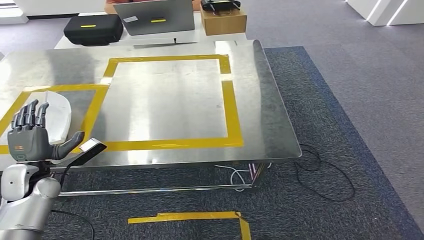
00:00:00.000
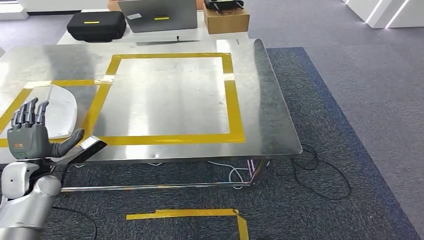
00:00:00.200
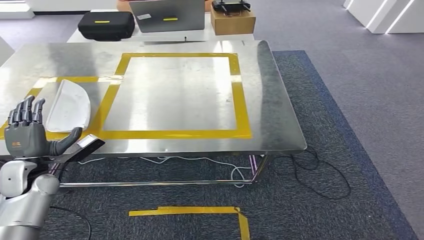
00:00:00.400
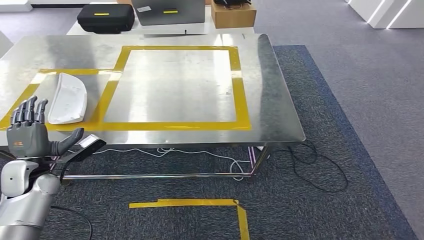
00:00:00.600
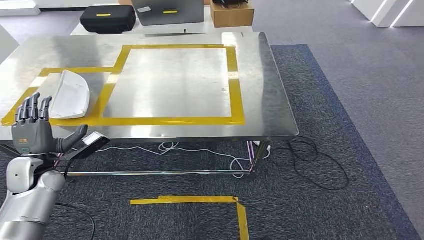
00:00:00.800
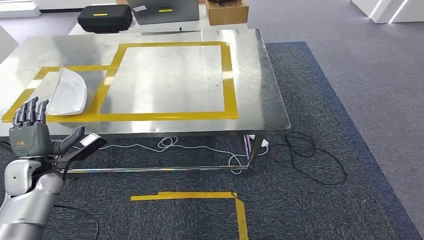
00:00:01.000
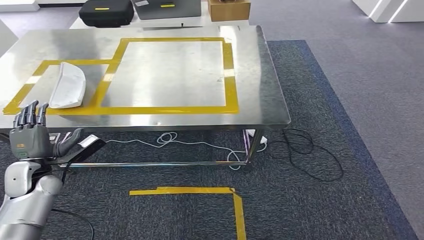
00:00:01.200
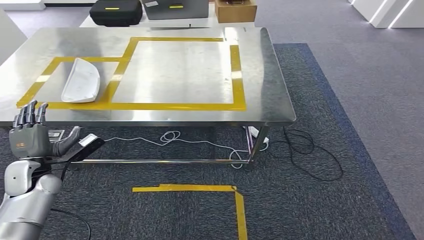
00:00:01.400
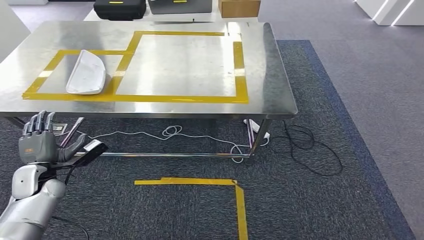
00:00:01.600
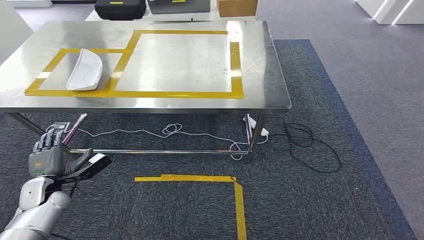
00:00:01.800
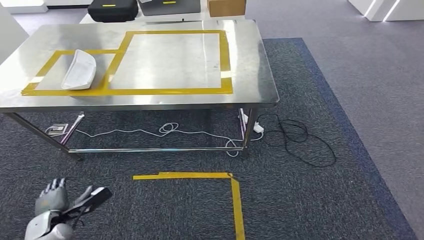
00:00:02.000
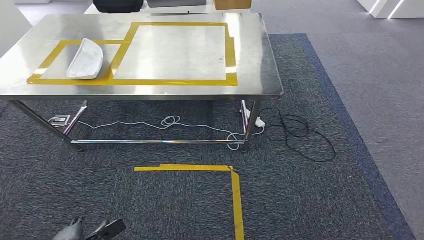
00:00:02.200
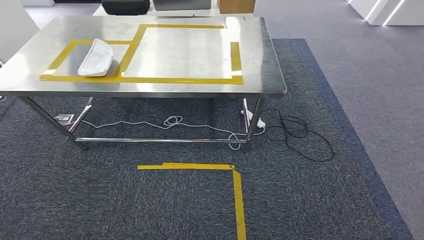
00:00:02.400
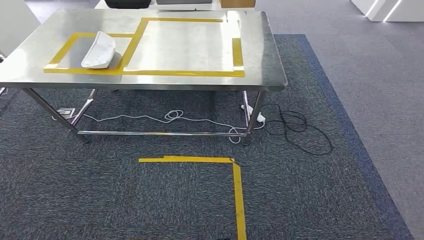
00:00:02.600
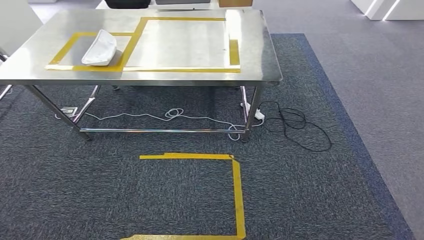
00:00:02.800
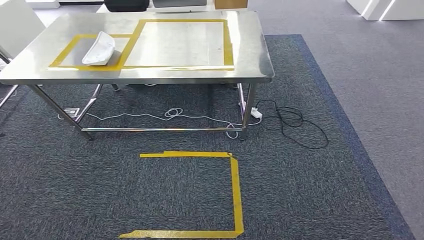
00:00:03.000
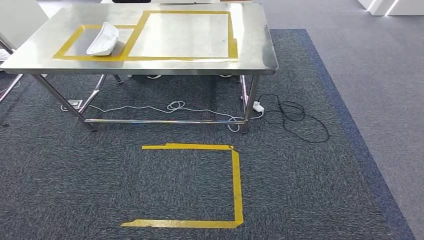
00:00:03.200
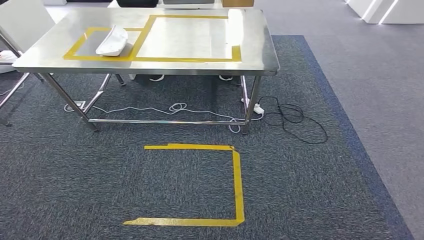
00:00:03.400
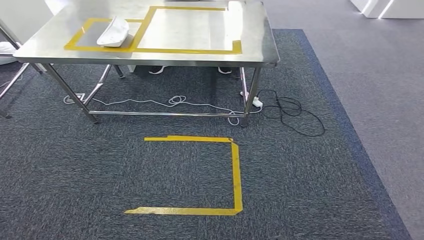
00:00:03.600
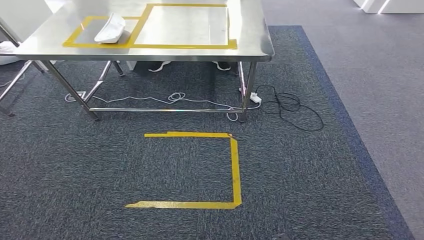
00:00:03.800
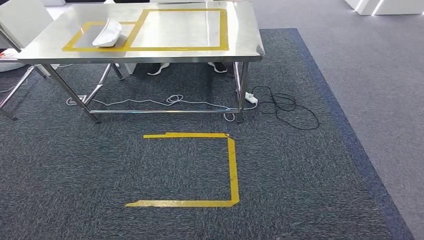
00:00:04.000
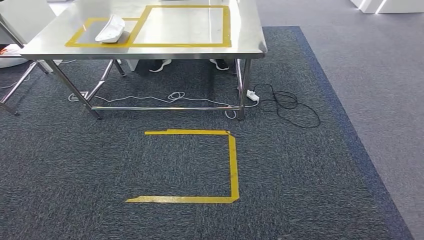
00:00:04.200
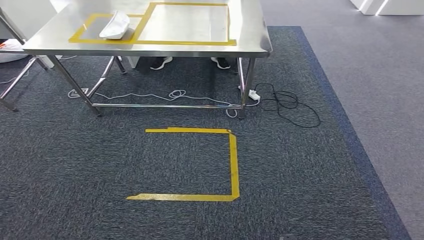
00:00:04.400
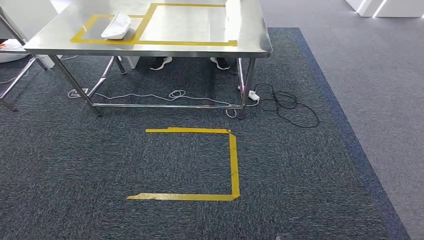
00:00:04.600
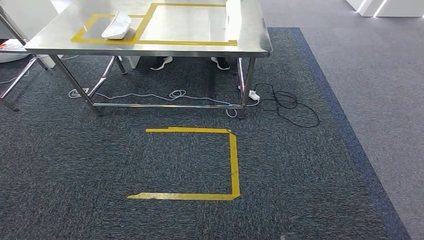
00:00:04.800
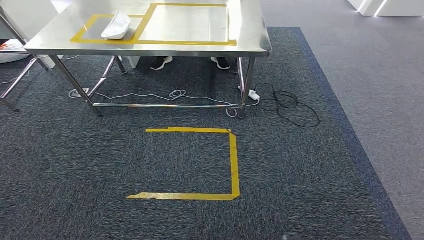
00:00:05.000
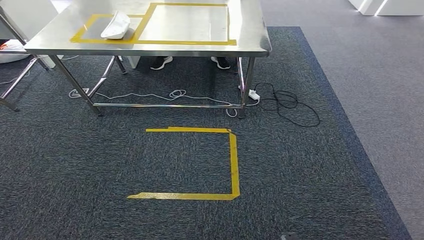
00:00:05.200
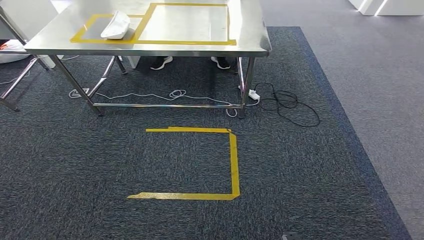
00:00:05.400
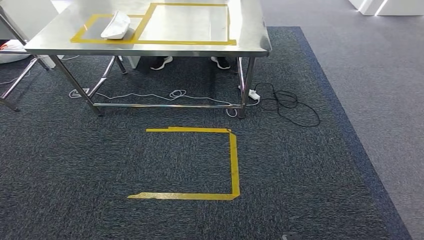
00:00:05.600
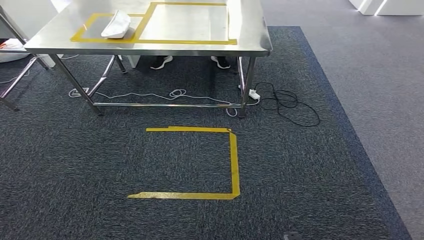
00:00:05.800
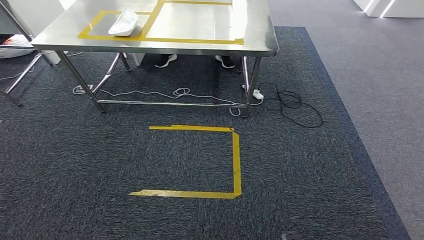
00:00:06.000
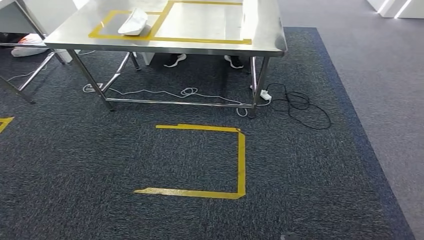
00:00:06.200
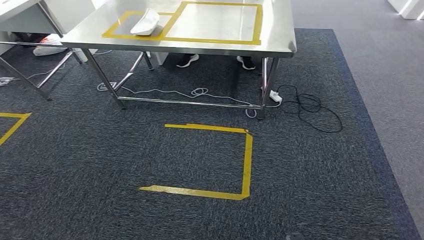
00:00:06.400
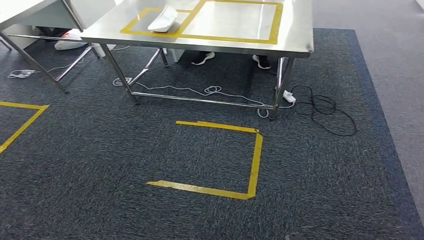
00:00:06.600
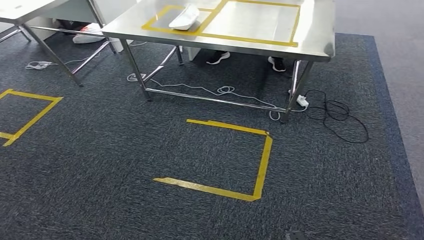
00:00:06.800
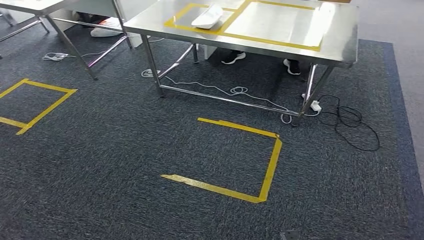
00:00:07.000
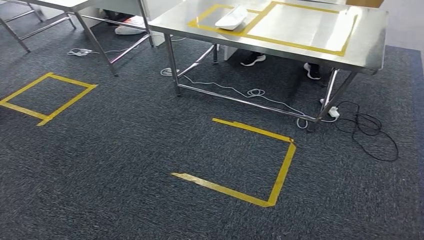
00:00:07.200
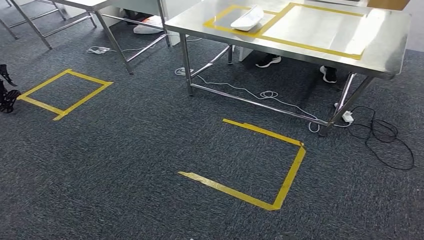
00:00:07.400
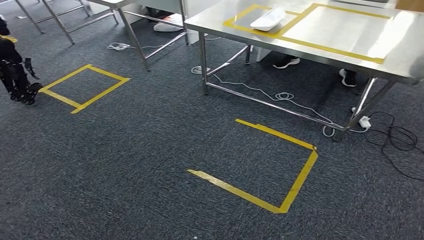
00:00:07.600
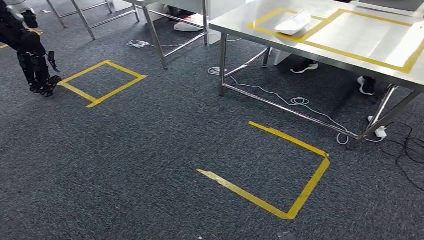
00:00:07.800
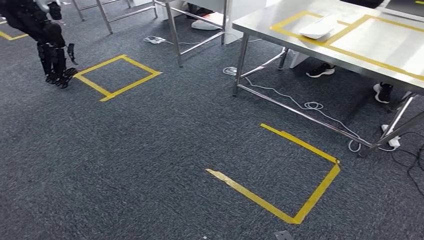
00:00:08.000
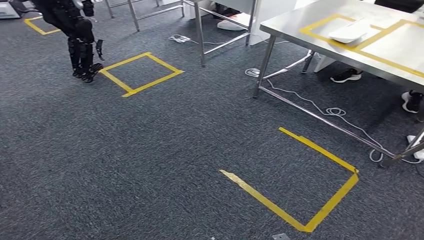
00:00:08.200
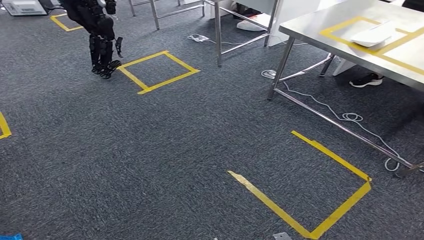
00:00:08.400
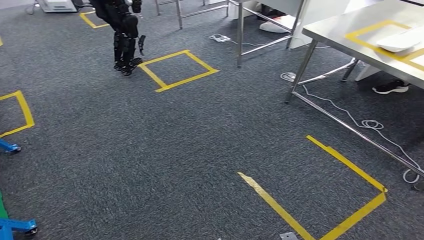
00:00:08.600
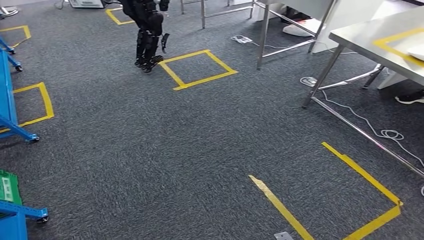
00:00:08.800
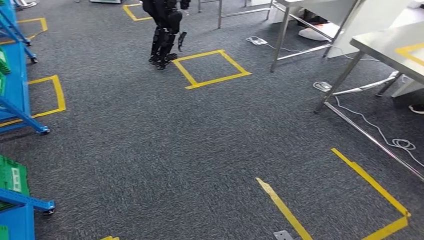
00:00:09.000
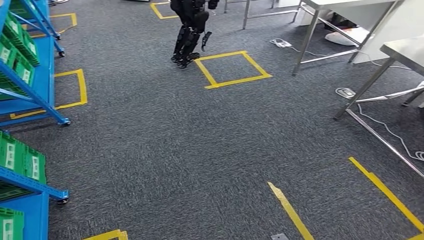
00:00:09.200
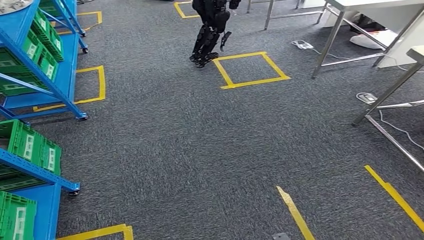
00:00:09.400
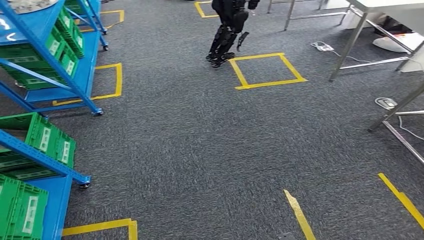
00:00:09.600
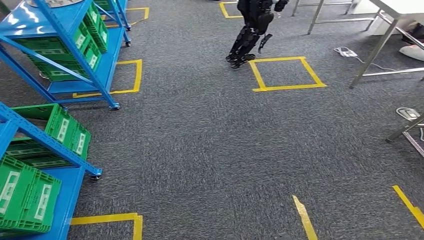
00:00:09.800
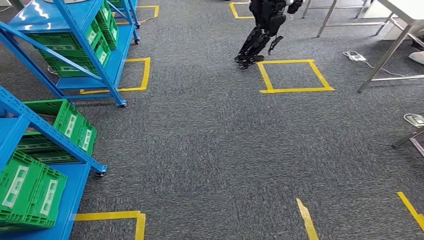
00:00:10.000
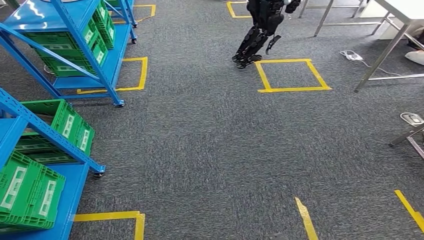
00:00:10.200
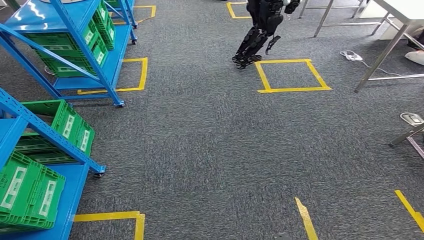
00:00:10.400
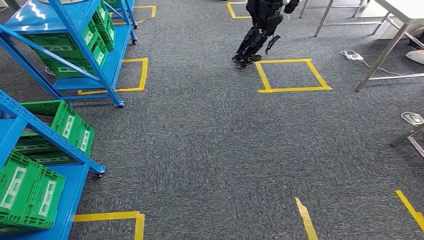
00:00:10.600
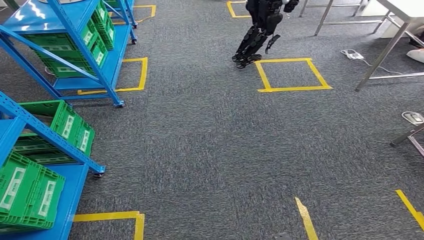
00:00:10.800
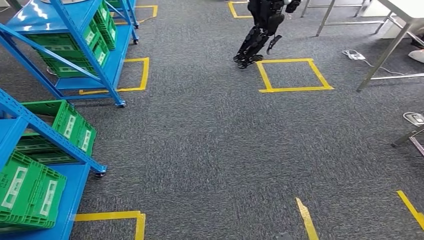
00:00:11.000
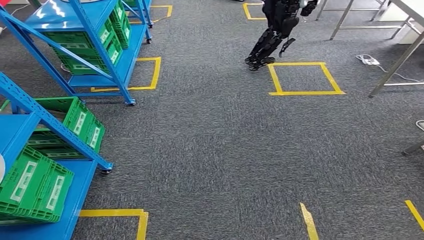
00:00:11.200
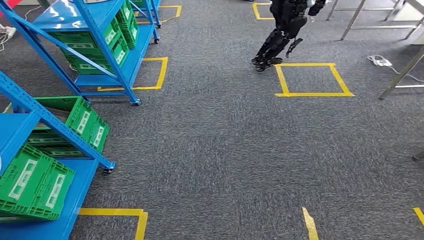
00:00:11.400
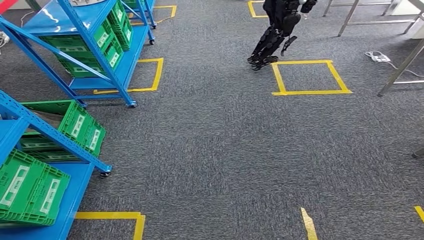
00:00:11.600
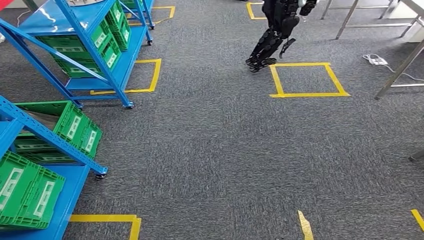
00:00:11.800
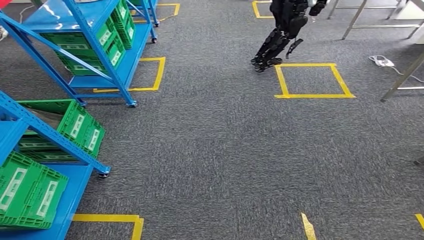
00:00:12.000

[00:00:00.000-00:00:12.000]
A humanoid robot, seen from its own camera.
00:00:04.400 to 00:00:06.000: The hands move only a little.

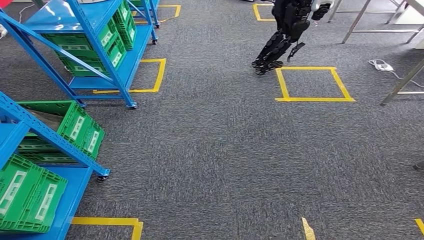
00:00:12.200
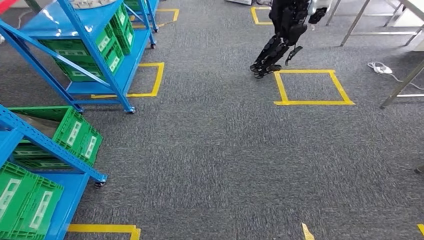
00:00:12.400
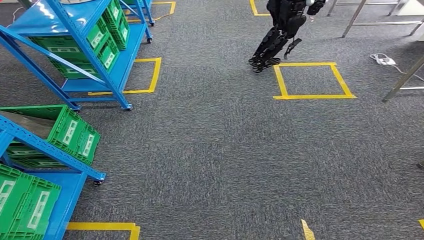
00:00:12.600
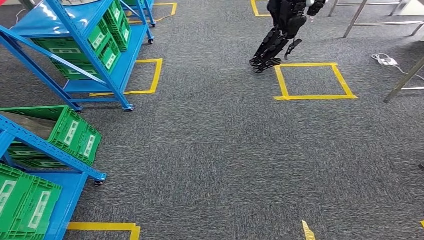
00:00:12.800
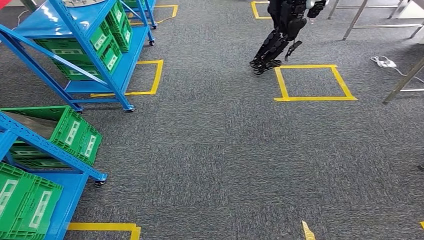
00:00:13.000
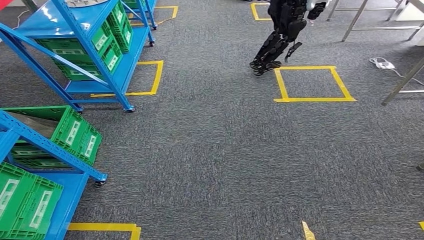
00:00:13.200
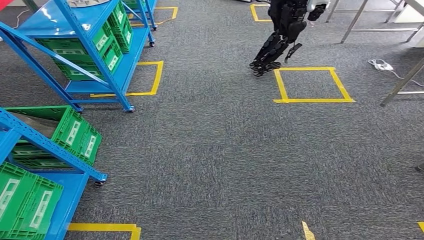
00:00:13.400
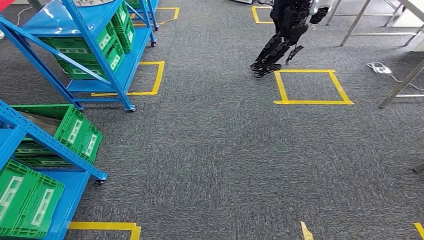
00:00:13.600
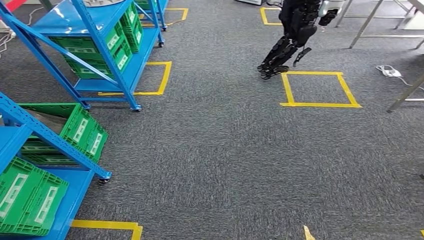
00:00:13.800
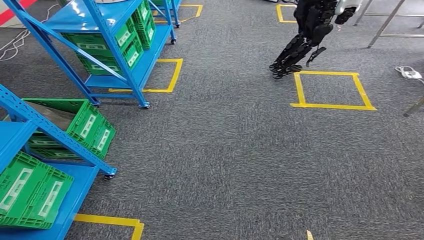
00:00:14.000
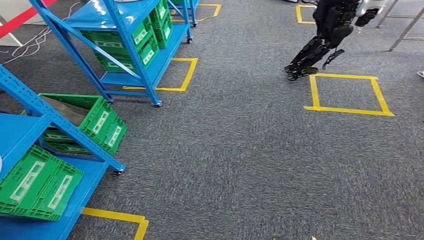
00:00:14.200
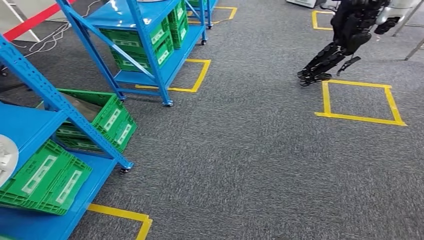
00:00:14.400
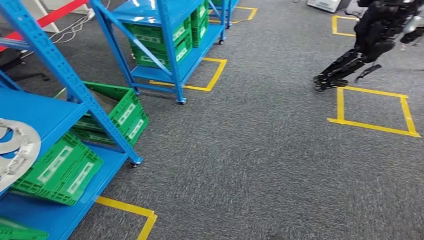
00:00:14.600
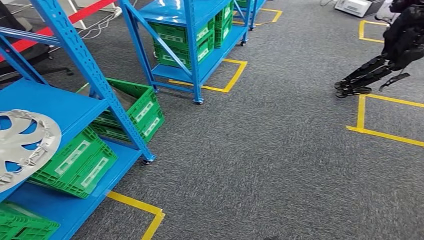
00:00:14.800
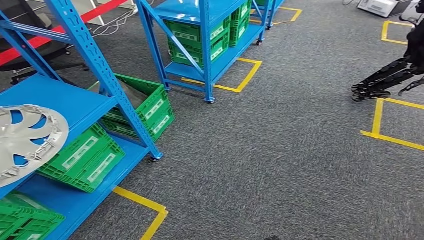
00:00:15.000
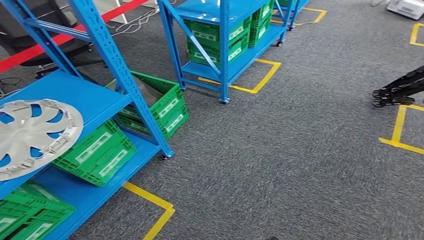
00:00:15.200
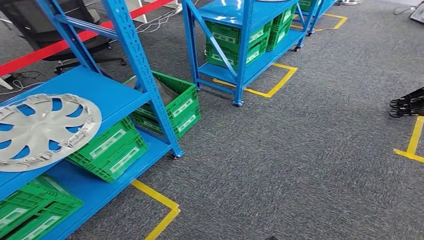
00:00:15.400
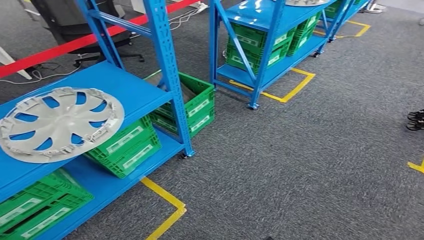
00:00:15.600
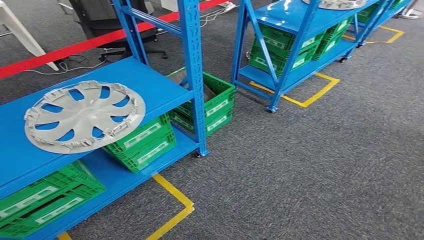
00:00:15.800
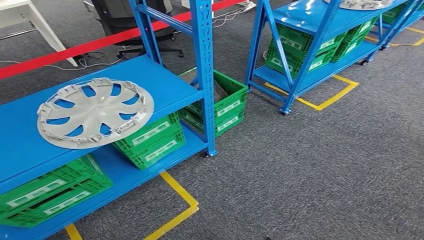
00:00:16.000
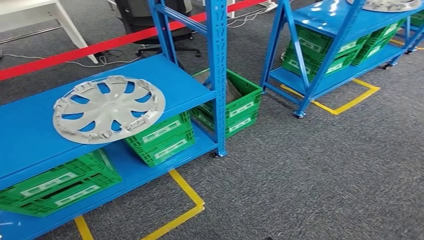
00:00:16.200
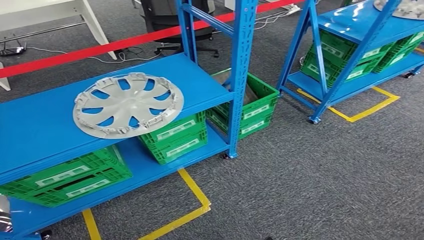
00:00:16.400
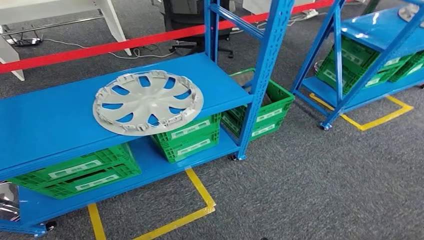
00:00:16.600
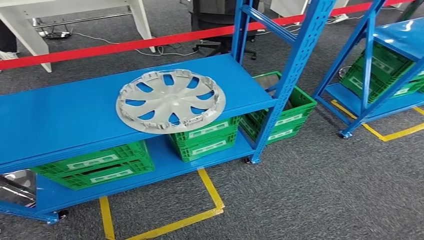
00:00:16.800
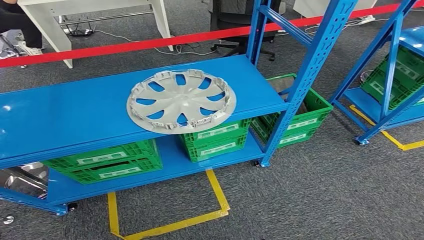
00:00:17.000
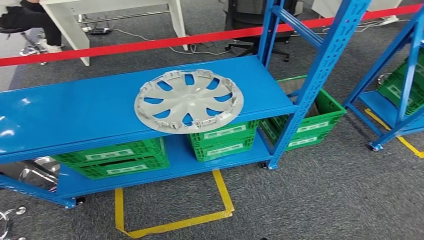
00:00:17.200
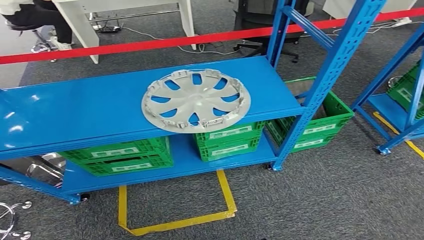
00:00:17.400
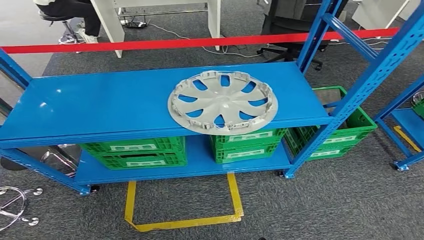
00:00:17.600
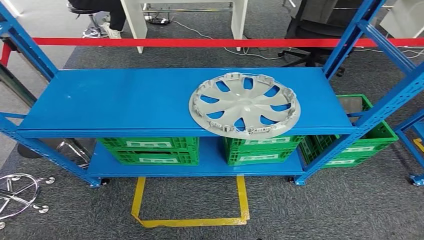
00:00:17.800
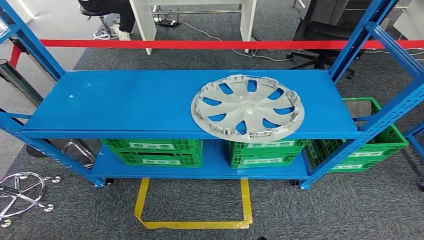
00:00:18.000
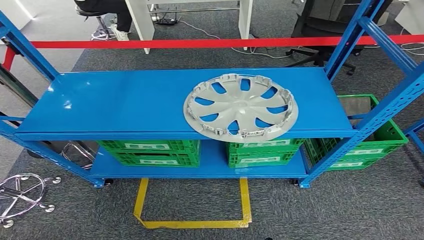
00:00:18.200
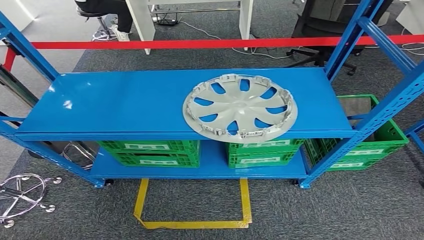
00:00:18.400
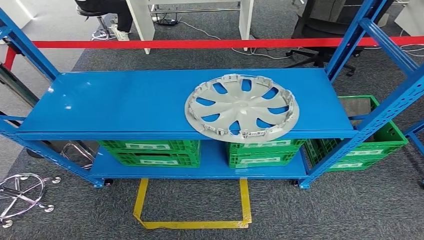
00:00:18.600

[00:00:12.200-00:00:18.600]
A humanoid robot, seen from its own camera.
Step, 00:00:12.200 to 00:00:18.600: Return to the initial position at the workbench.
00:00:12.200 to 00:00:13.800: The two hands keep their place.
